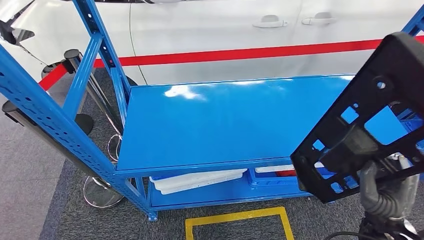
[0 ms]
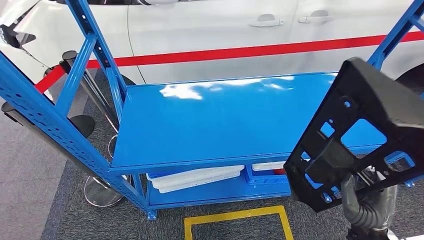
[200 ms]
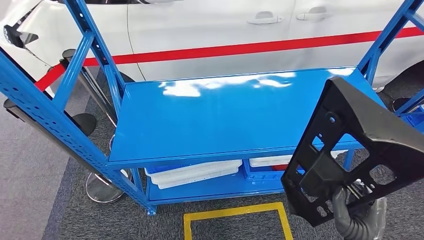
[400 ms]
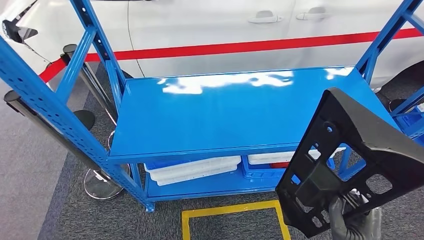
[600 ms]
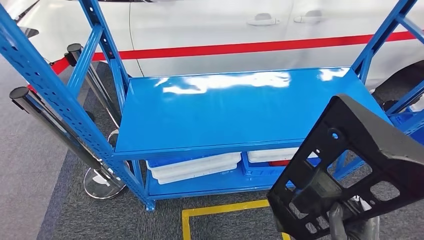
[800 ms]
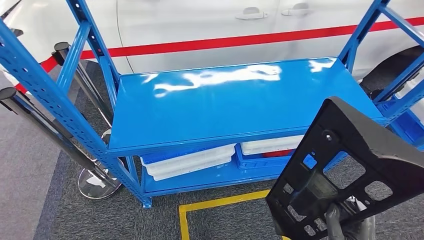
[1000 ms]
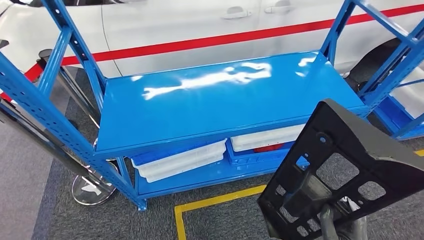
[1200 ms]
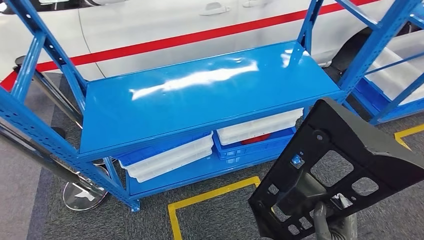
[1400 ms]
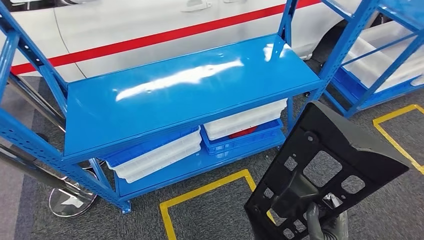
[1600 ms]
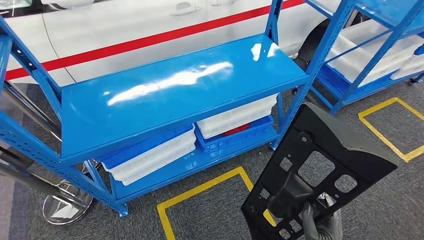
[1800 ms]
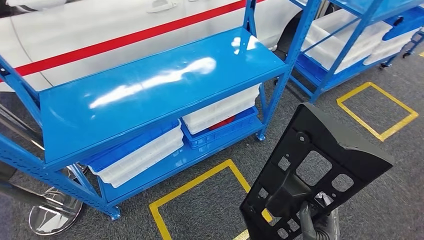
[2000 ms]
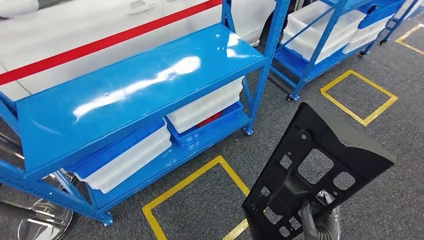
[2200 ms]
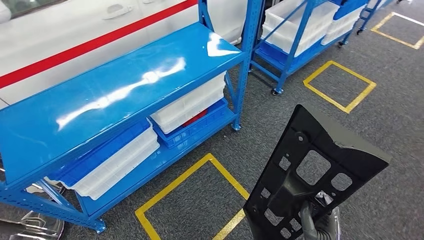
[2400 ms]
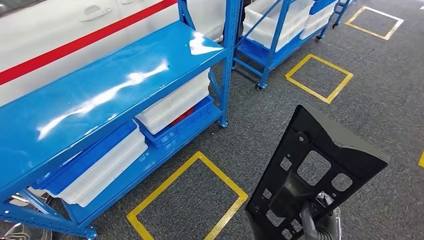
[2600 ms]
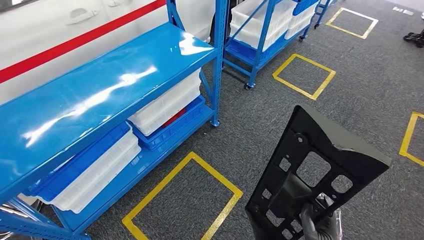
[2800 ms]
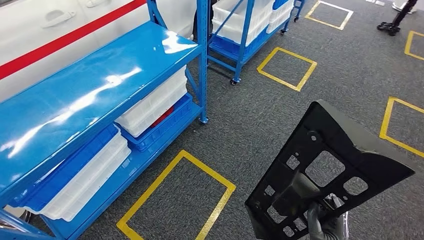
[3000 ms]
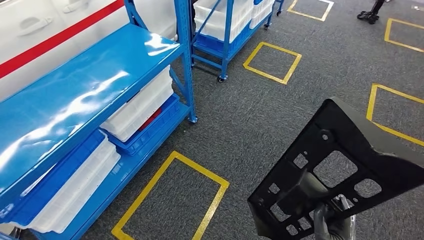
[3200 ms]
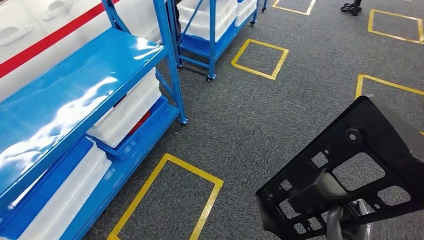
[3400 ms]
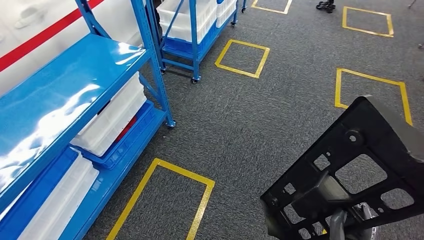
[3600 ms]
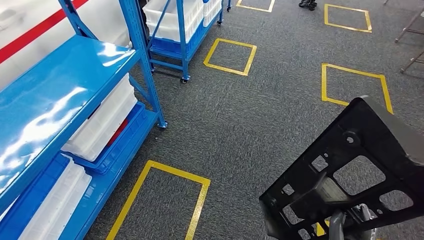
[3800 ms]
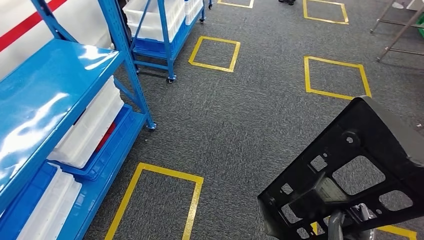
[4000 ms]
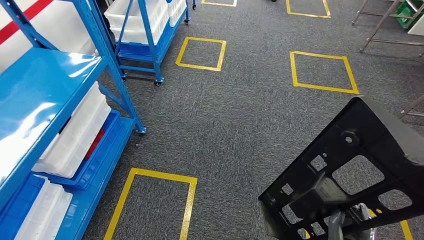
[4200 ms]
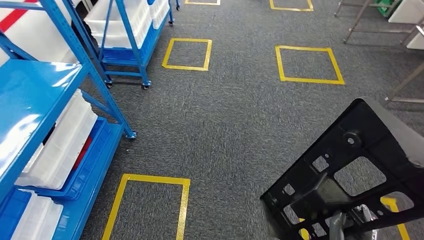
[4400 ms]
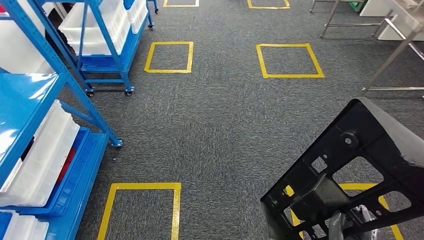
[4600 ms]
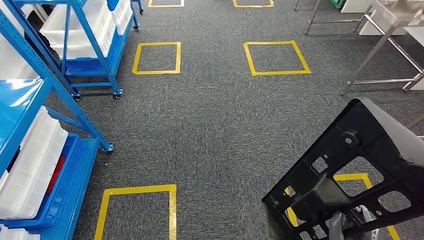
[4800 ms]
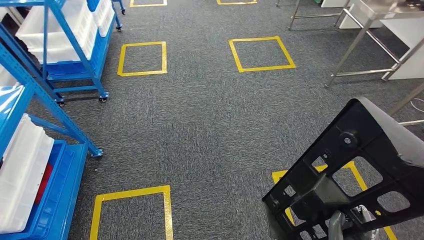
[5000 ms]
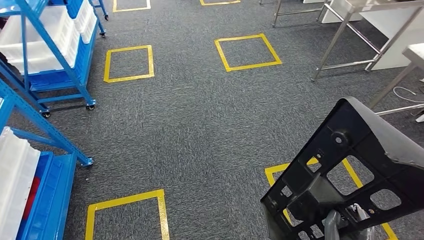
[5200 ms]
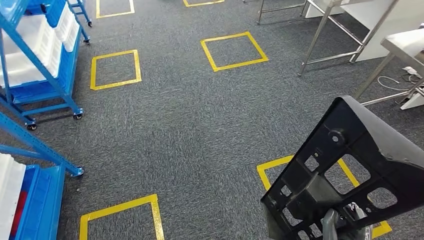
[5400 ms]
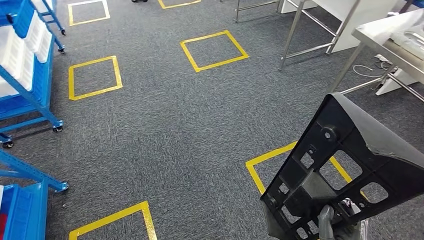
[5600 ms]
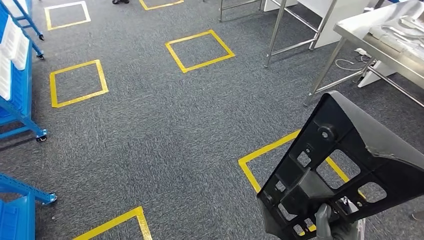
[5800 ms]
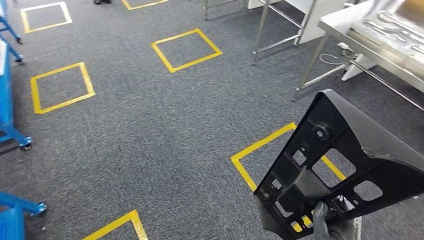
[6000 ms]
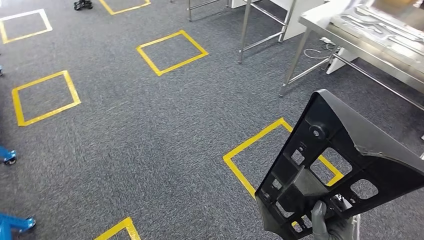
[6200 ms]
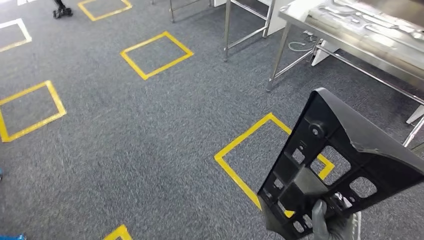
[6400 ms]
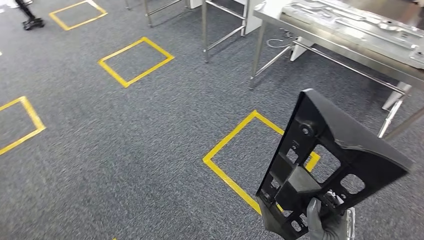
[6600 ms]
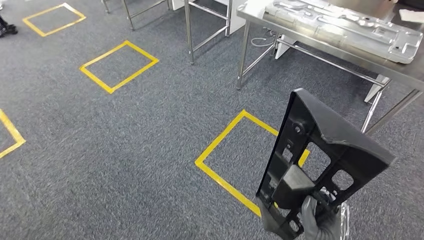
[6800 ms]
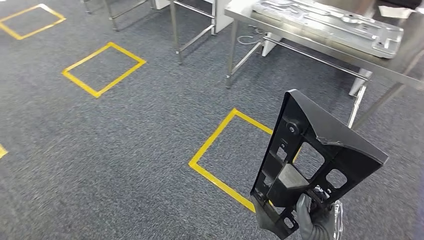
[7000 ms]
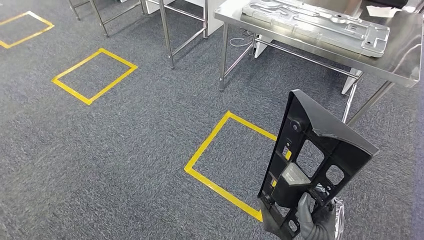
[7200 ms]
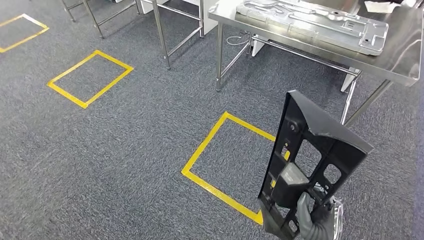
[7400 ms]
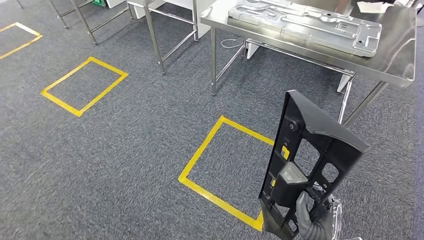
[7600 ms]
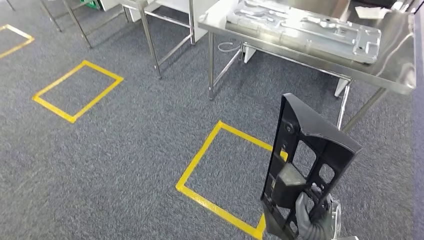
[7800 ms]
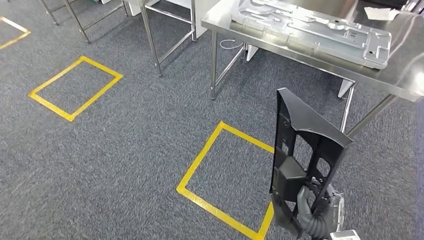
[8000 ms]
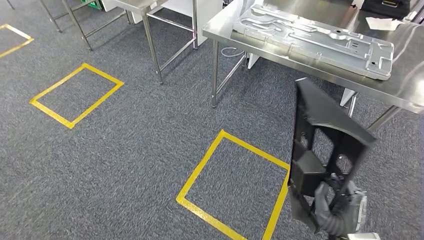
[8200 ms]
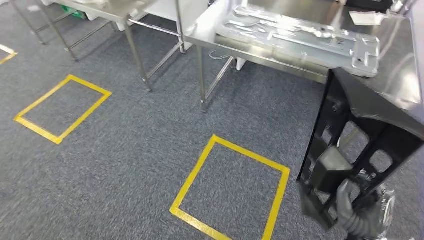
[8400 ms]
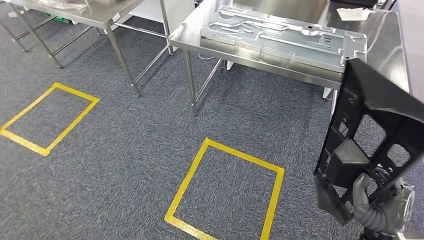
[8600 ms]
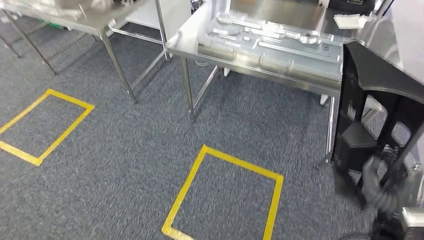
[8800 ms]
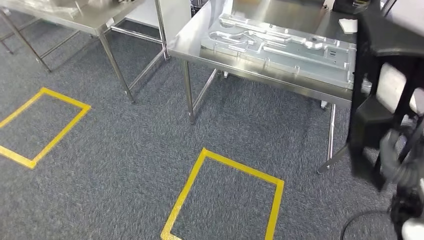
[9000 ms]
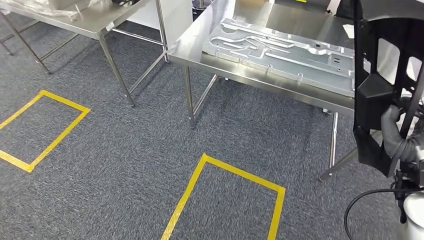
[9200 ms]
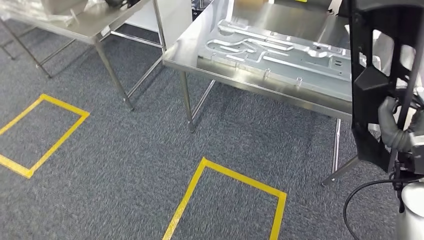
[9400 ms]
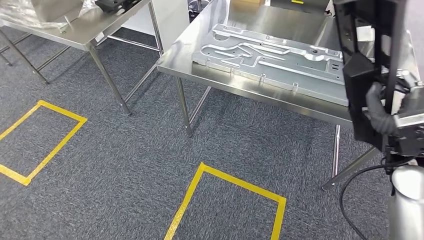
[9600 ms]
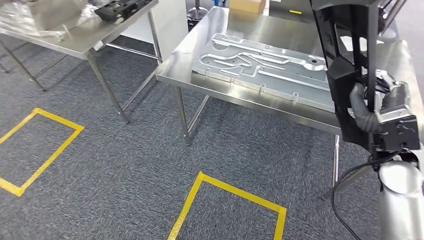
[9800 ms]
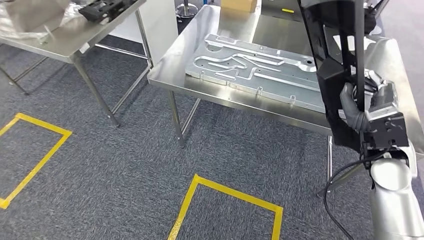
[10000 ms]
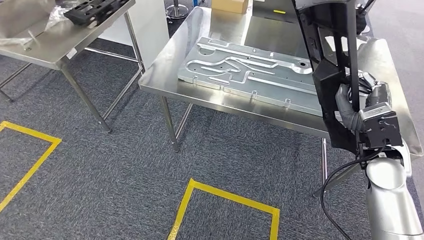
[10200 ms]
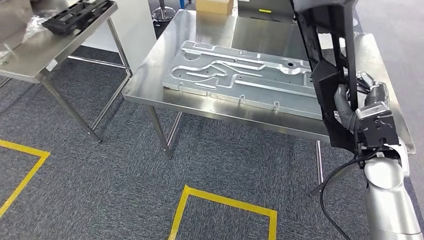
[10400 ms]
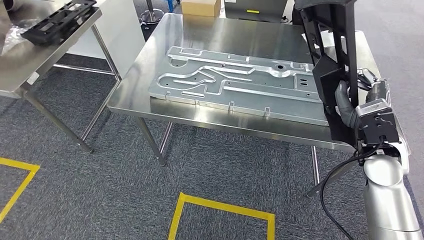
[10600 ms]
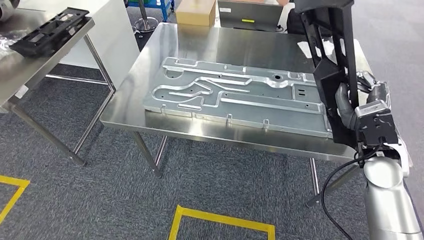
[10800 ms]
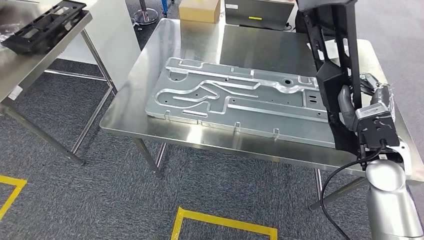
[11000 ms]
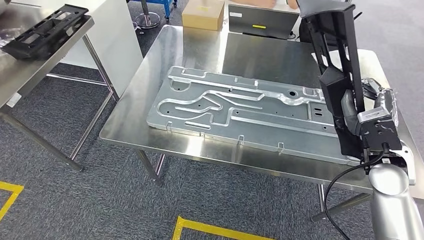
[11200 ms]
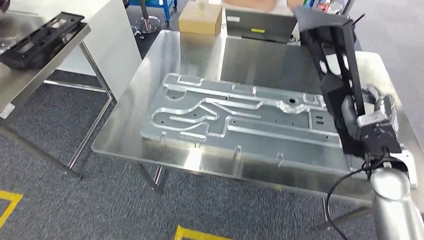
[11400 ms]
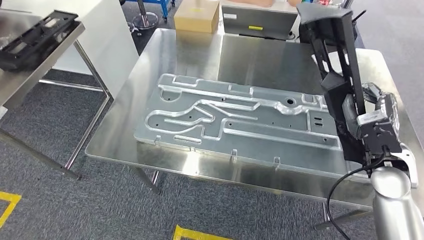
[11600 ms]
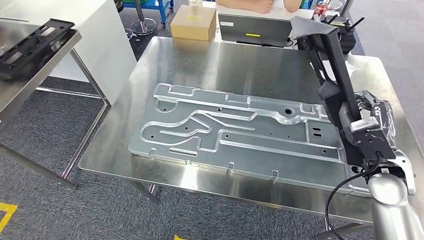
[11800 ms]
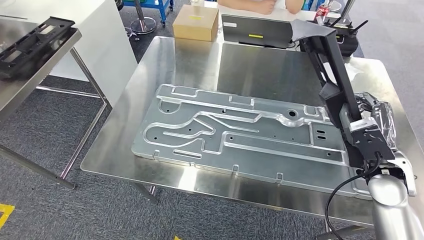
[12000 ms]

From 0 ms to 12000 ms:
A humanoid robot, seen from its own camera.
Step, from 600 ms to 11600 ms: Move the large material to the workbench.

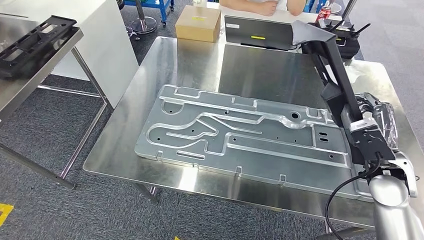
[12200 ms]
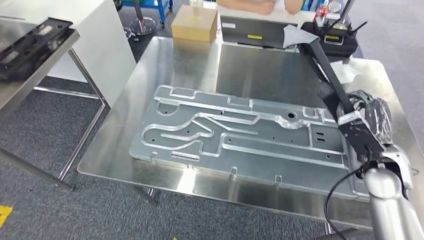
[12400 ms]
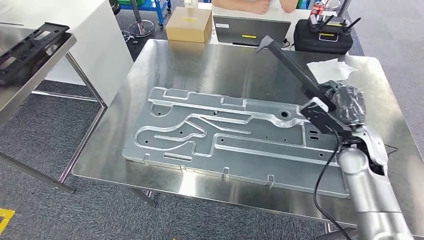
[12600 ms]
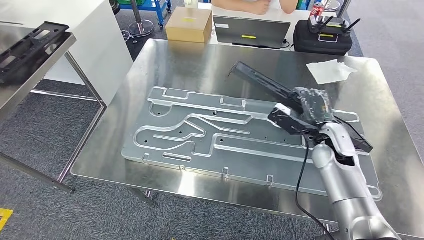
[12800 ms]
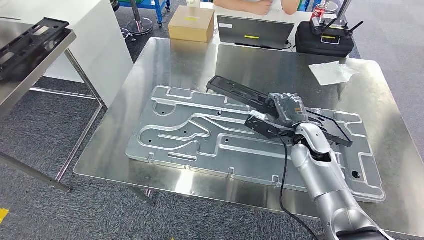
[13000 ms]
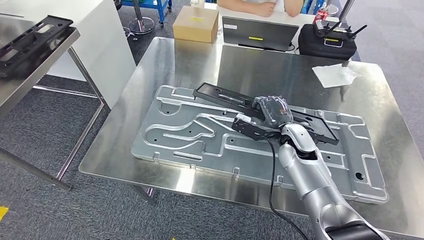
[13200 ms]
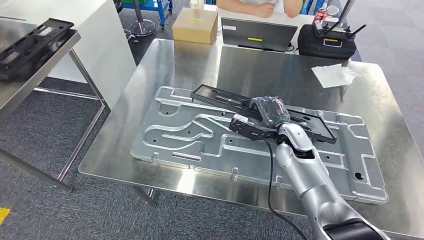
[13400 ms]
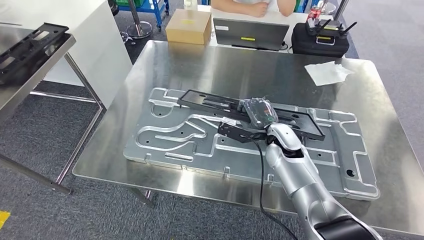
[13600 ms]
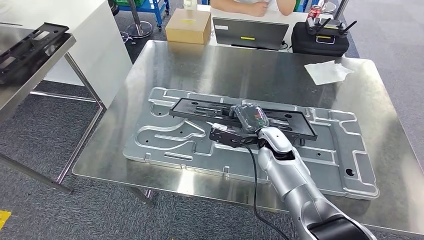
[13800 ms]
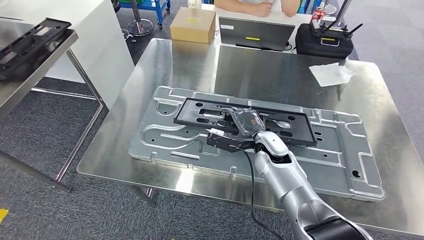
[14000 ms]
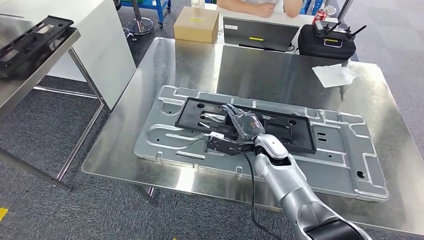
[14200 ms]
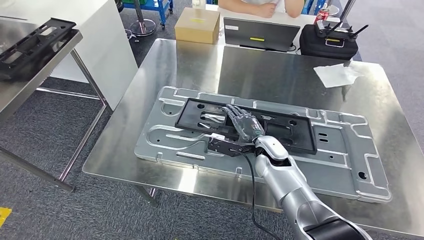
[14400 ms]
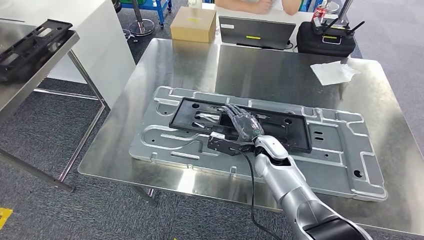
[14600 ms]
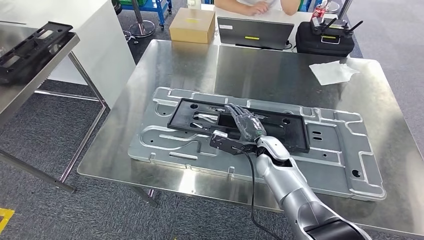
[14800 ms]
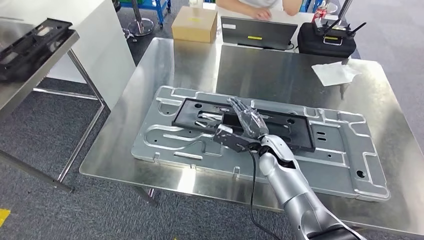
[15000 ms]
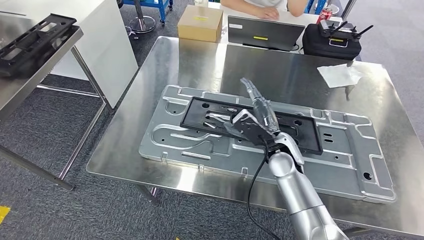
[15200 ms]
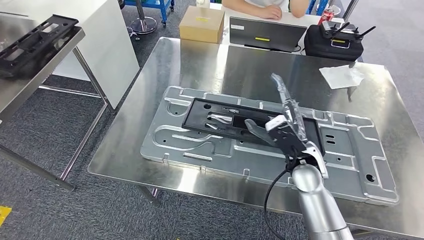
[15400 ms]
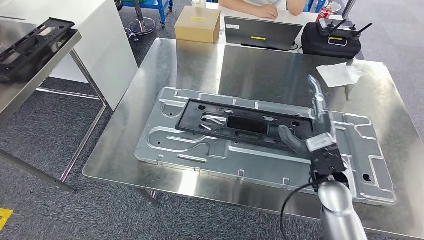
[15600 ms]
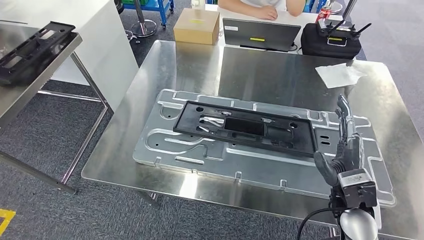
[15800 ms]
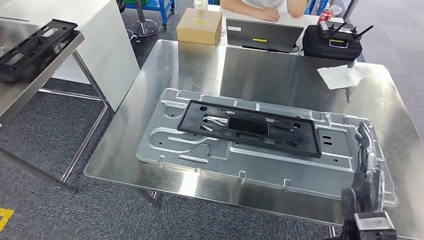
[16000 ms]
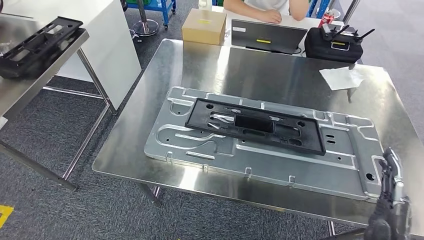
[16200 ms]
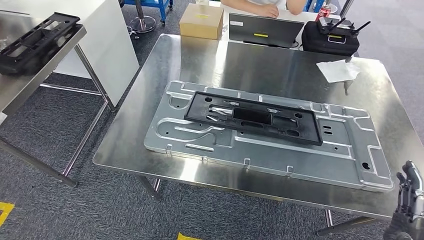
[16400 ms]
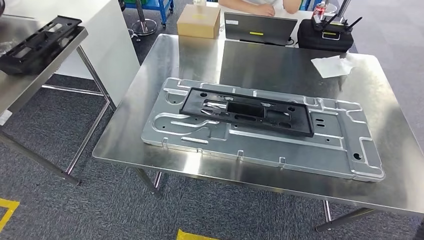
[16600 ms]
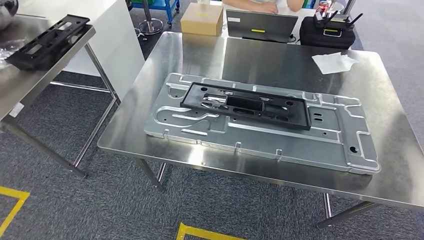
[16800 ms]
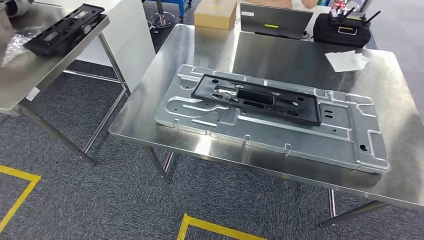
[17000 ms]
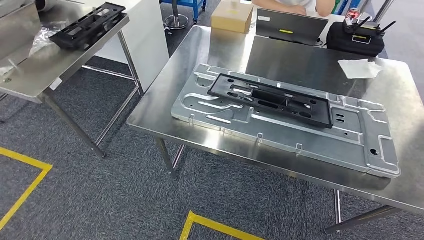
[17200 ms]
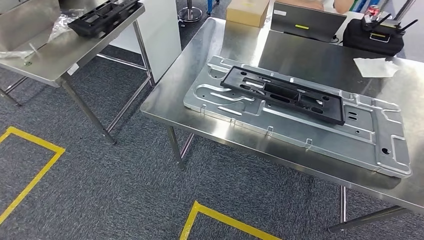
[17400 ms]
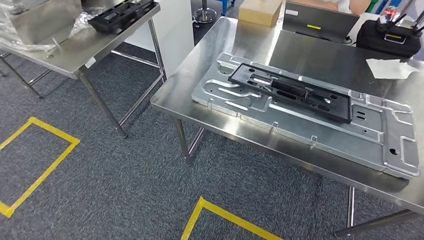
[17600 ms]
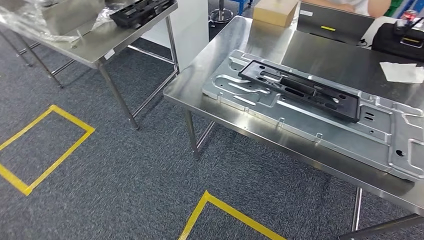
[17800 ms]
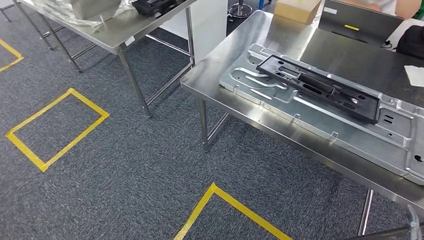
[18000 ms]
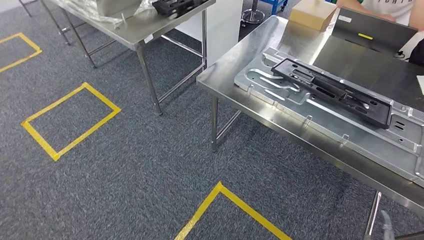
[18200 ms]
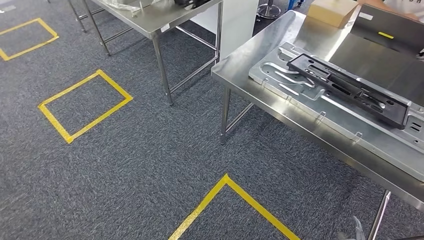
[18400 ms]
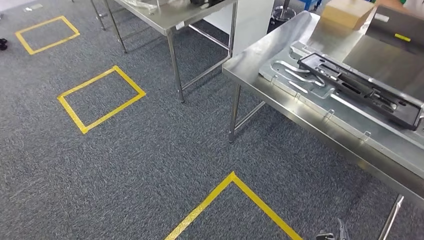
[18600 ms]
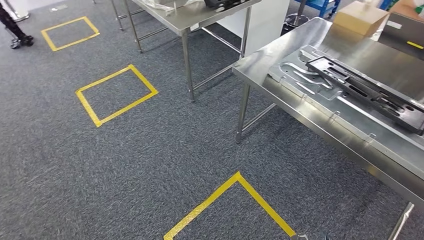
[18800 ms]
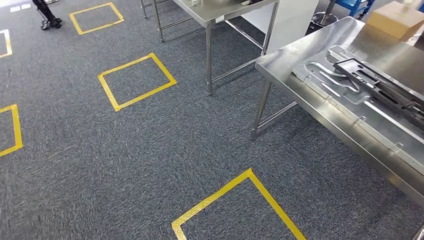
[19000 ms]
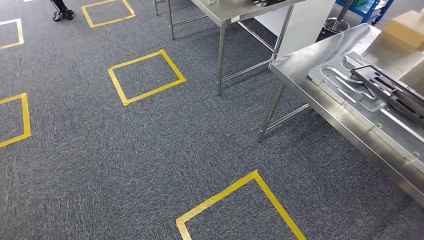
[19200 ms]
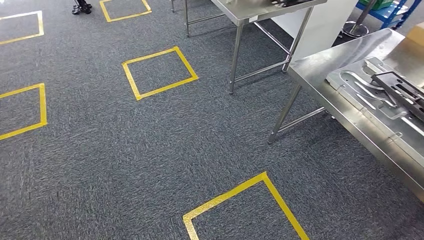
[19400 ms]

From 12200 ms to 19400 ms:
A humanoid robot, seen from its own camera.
Step, from 13000 ms to 18200 ms: Insert the large material into the corresponding slot on the workbench.
